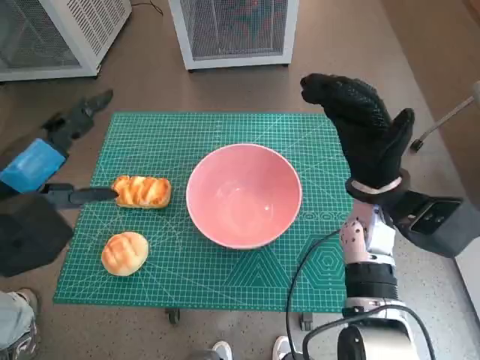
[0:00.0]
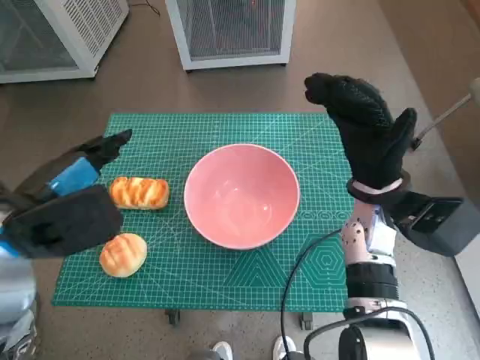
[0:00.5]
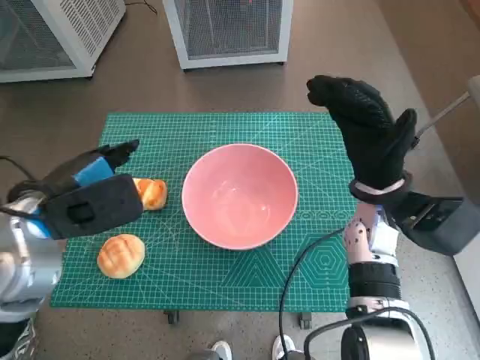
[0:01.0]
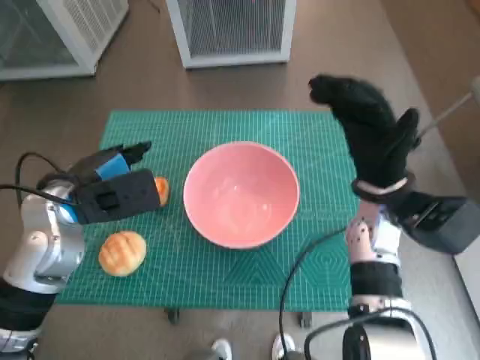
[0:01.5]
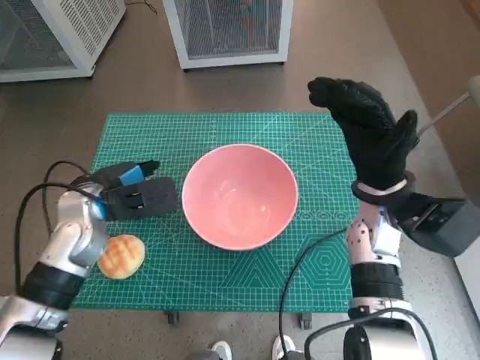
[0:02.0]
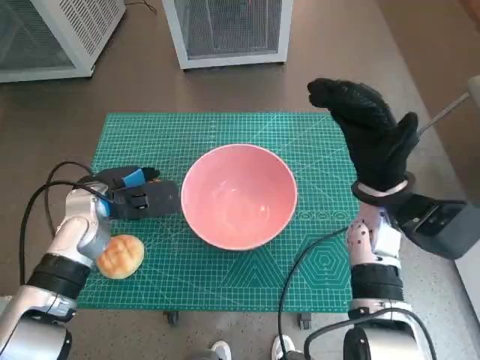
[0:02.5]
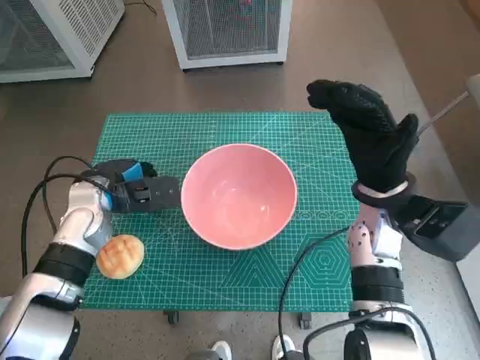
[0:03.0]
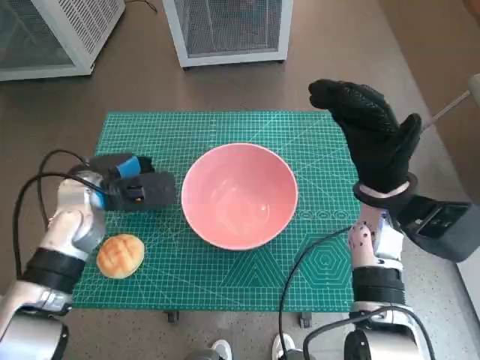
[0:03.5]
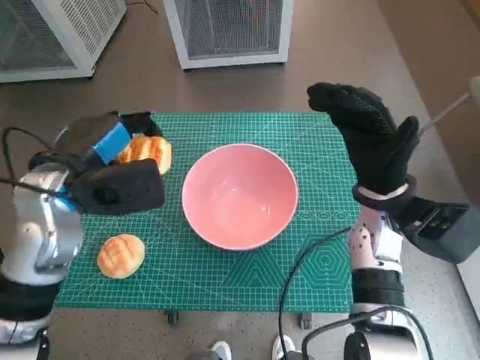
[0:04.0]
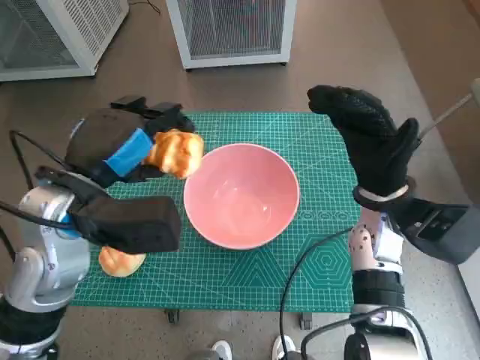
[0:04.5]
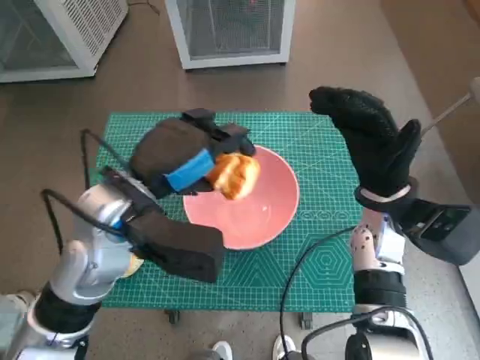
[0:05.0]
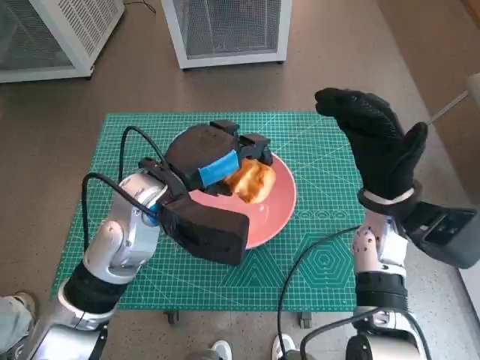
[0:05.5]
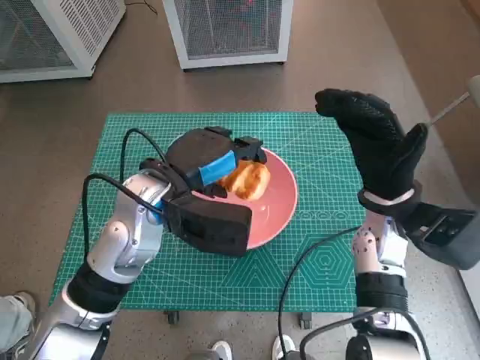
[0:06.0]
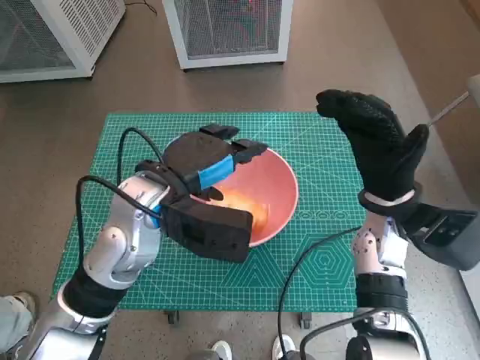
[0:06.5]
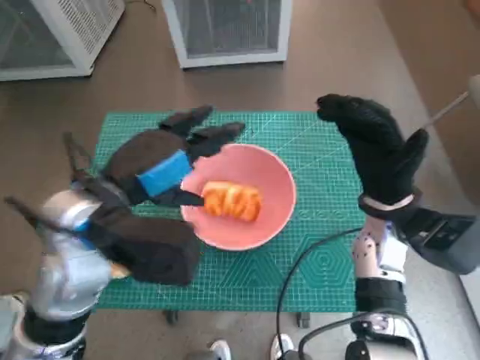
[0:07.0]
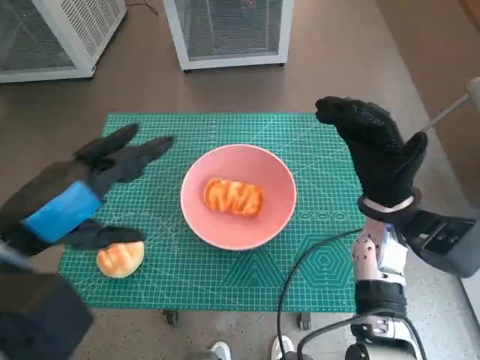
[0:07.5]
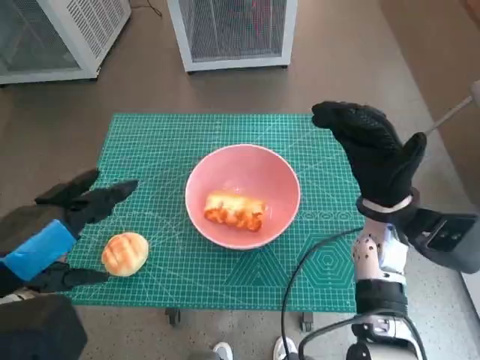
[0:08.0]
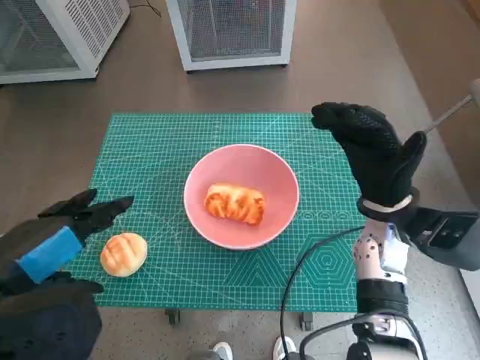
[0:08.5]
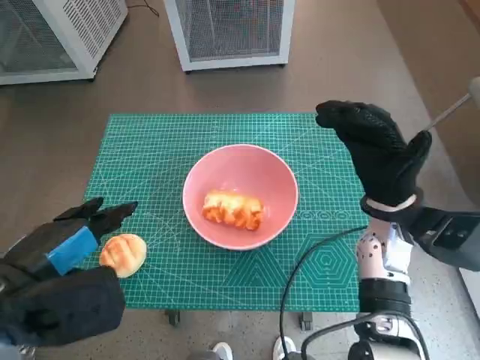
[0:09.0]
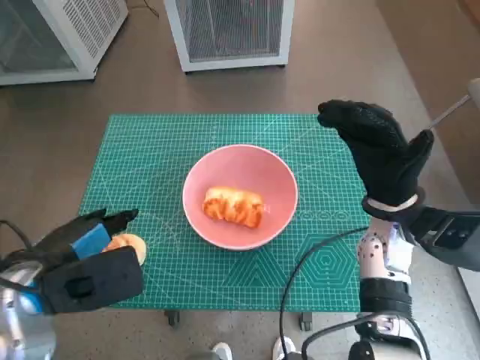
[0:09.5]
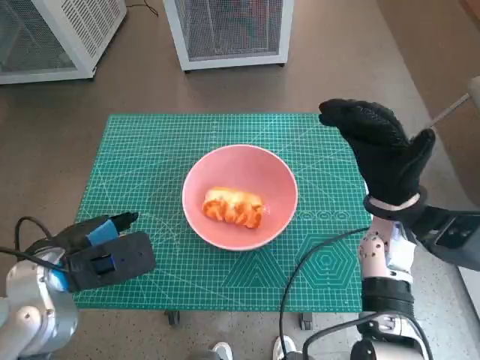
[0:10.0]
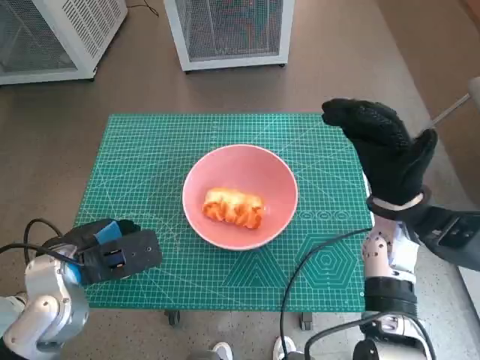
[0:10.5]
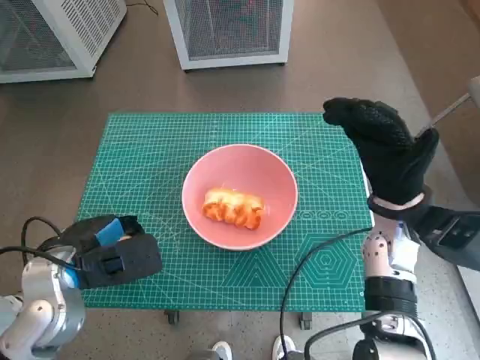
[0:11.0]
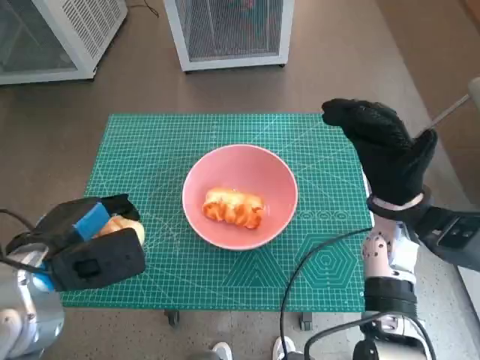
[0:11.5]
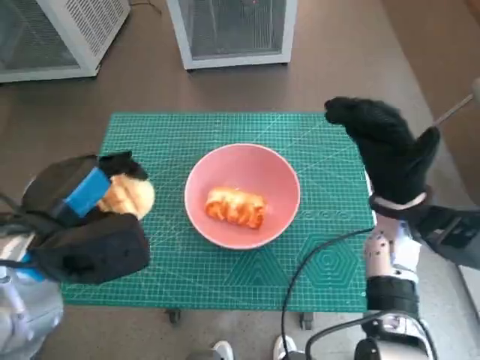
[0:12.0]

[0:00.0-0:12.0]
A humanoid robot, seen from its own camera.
Task of the whole recording: Push the bowl into the center of the table and put the bread into the bowl.
Step, 0:00.0 to 0:02.5: Grasp the long bread with left hand.
Step, 0:03.0 to 0:06.0: Place the long bread in pink bowl with left hand.
Step, 0:06.5 to 0:10.5: Grasp the round bread with left hand.
0:00.0 to 0:02.0: The left hand goes roughly 15 cm downward and forward.
0:02.0 to 0:04.0: The left hand is displaced upward by about 5 cm.
0:04.0 to 0:06.0: The left hand moves to the right, about 10 cm.
0:06.0 to 0:08.0: The left hand moves backward, to the left and upward, roughly 20 cm.
0:08.0 to 0:10.0: The left hand travels downward and forward by about 10 cm.
0:10.0 to 0:12.0: The left hand travels upward by about 5 cm.

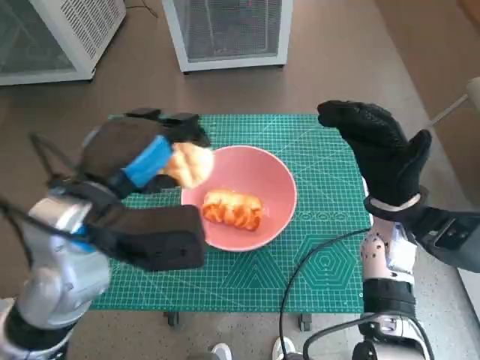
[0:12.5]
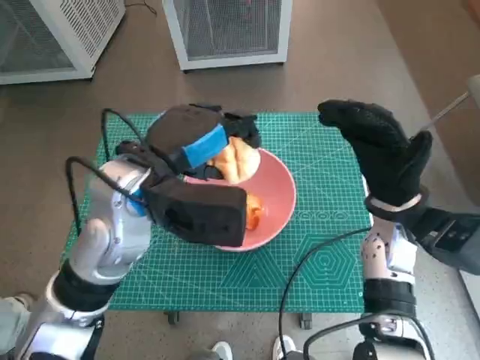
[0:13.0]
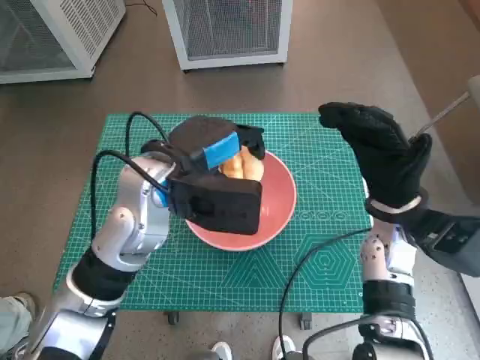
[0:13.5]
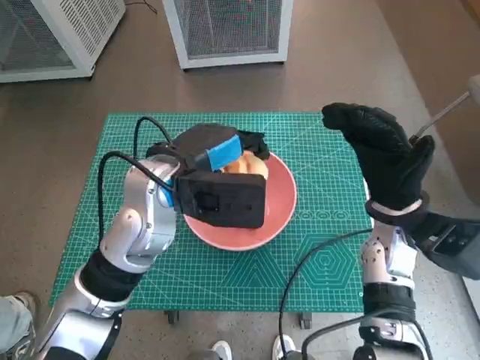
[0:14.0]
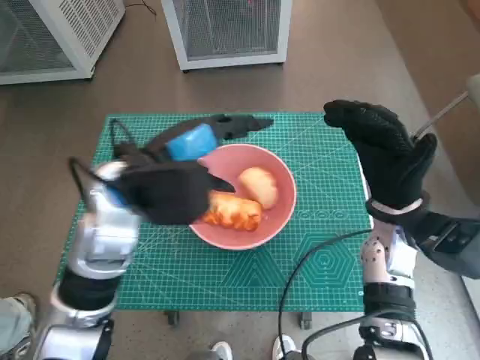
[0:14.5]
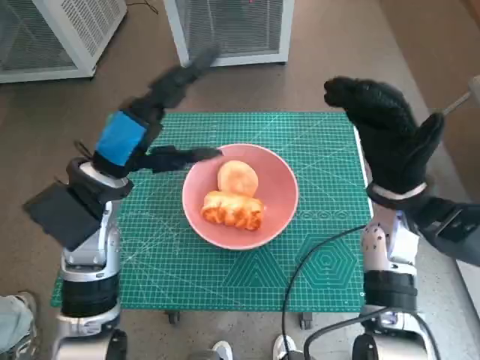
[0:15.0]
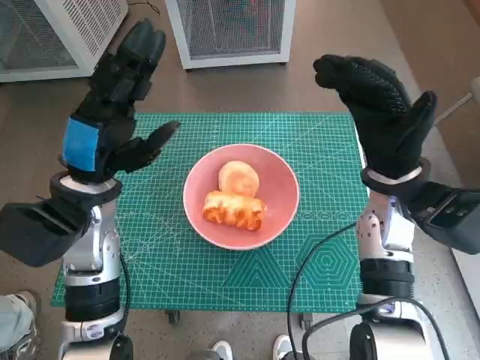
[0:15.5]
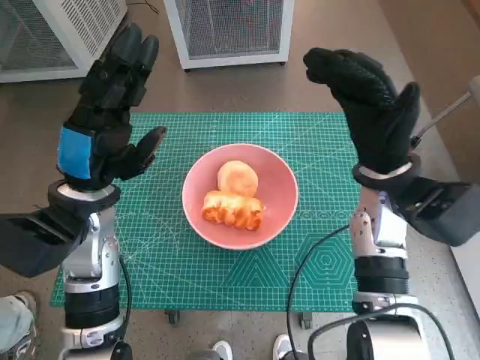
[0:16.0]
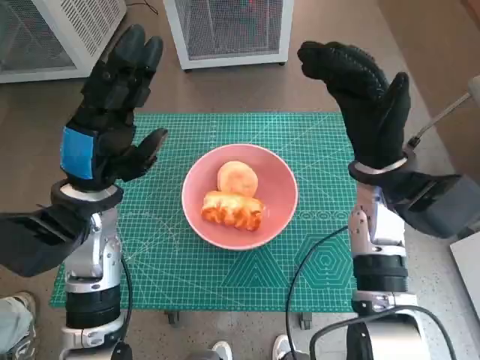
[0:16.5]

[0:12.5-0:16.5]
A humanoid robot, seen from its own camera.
Task of the whole recording: Push the bowl into the center of the table and put the bread into the bowl.
0:12.5 to 0:14.5: The left hand travels forward by about 5 cm.
0:14.5 to 0:16.5: The right hand ends up some 5 cm from where it was. Meanwhile the left hand is displaced to the left by some 5 cm.

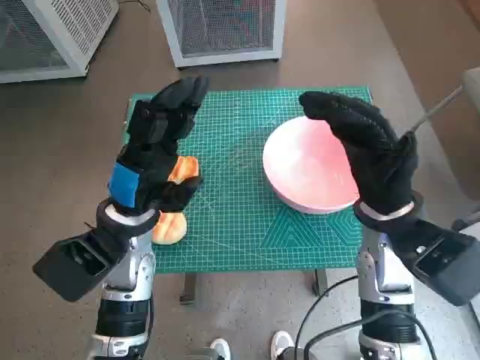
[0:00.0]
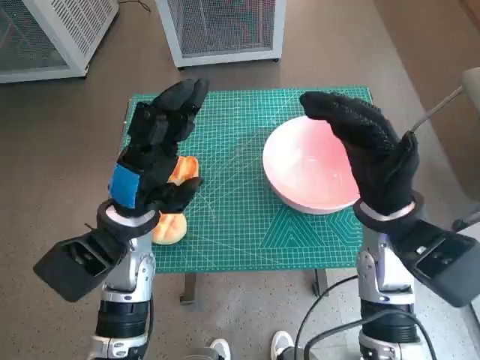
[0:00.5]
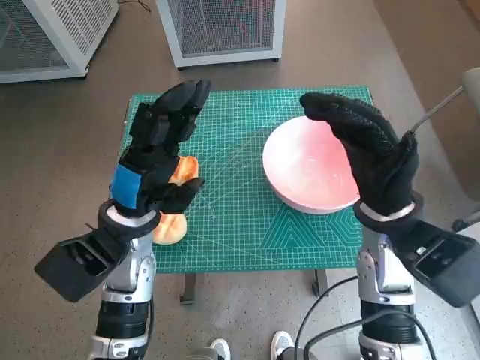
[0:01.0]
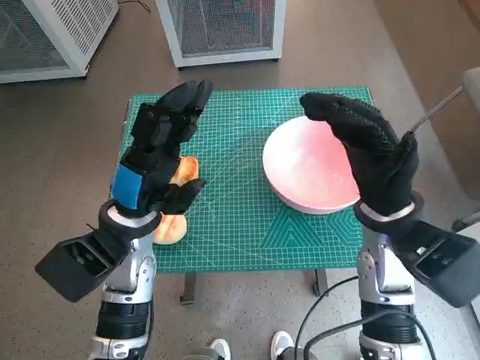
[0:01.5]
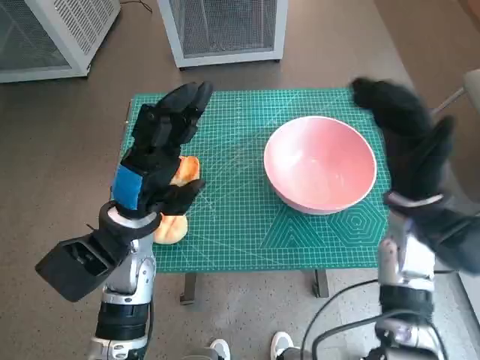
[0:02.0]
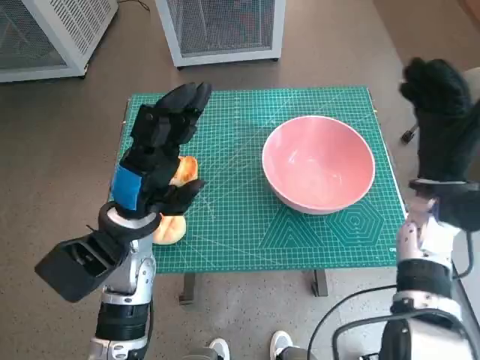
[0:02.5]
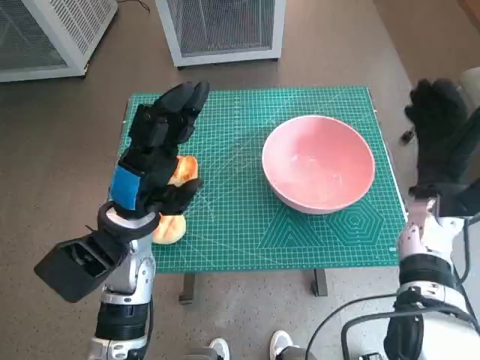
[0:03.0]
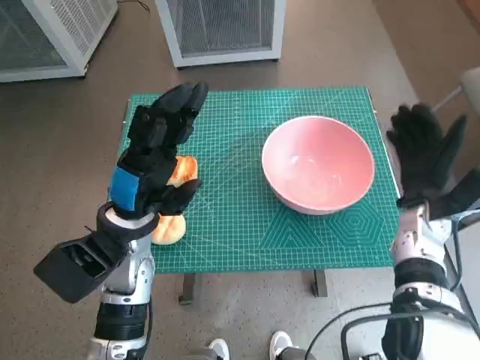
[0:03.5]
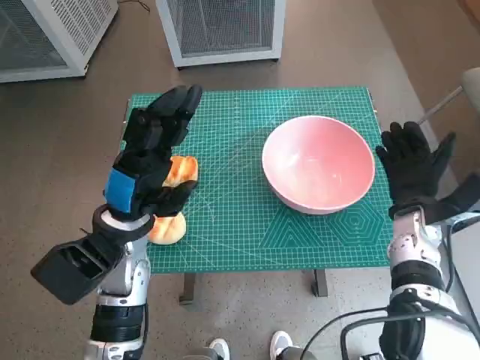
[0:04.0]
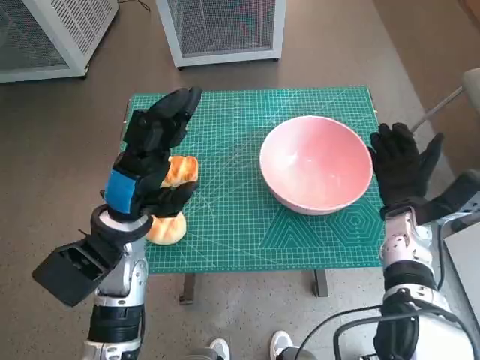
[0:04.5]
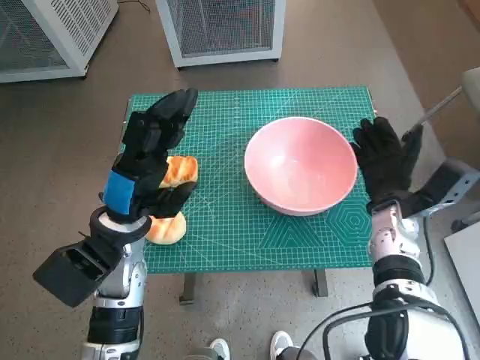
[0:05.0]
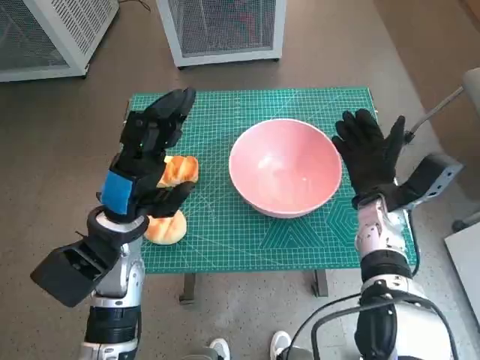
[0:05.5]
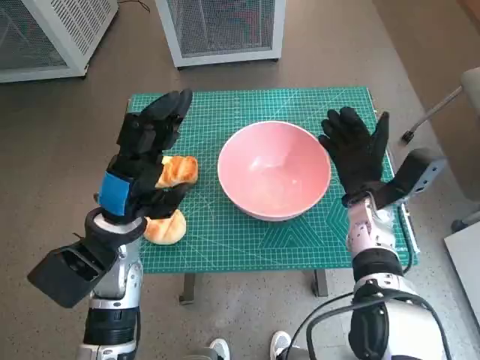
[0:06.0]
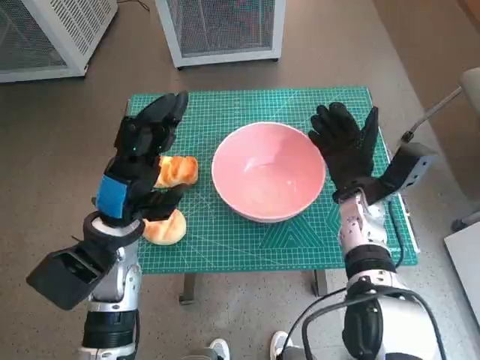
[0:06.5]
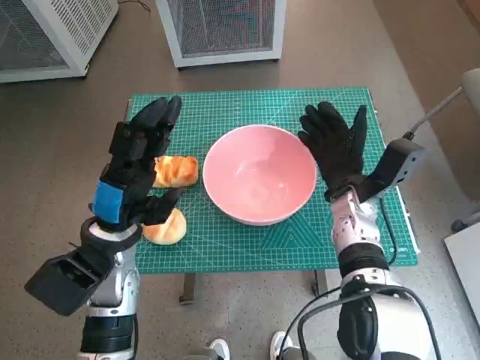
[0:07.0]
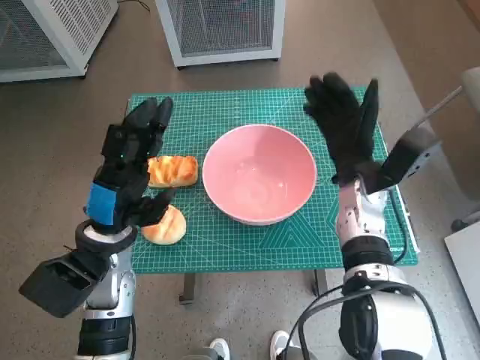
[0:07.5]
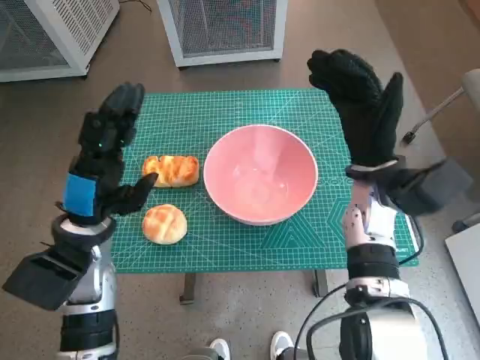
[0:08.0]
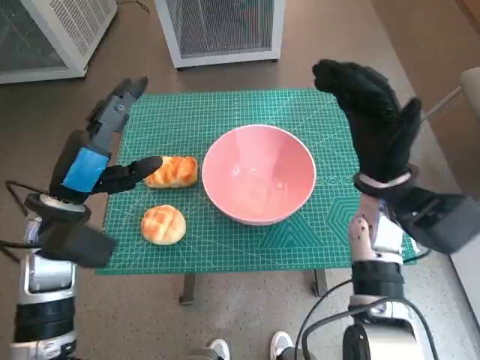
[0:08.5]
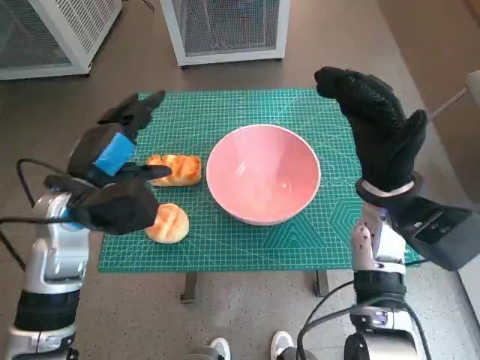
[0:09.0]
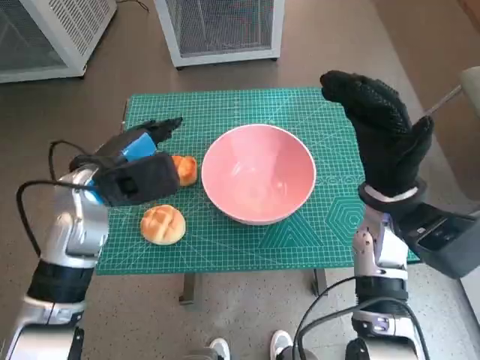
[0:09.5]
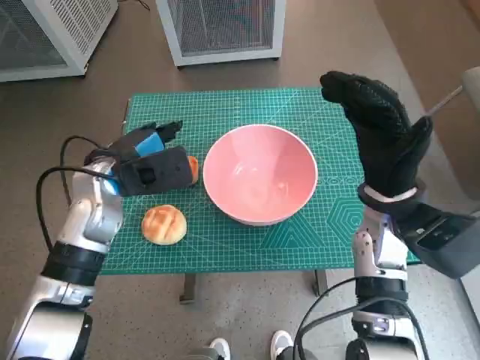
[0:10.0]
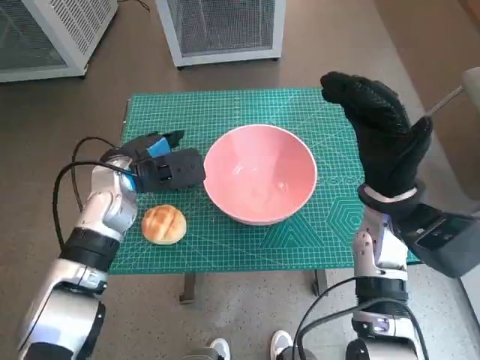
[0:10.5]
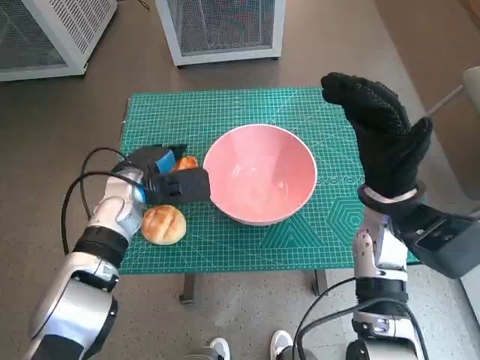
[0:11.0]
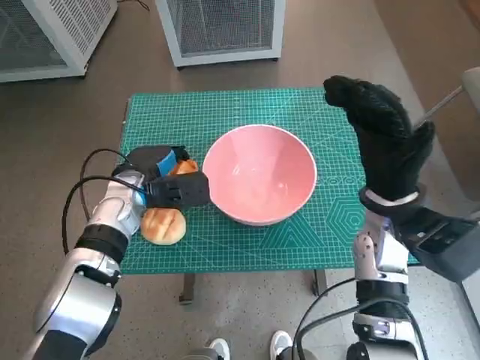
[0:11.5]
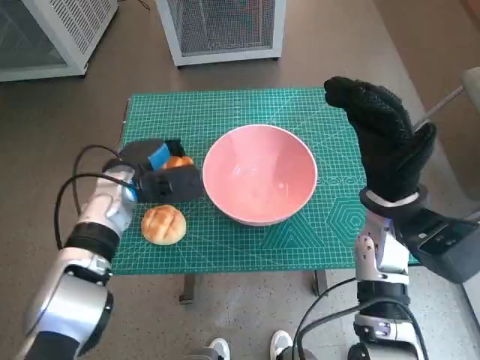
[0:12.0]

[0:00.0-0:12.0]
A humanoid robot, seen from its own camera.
Task of the whole recording: Push the bowl into the center of the table and put the bread into the bowl.
Step, 0:00.0 to 0:07.0: Move the pink bowl to the center of table with right hand.
Step, 0:07.5 to 0:11.0: Grasp the long bread with left hand.
0:02.0 to 0:04.0: The right hand shifts some 10 cm downward.
0:04.0 to 0:06.0: The right hand travels to the left by roughly 5 cm.
0:06.0 to 0:08.0: The right hand is displaced upward by about 5 cm.
0:08.0 to 0:10.0: The left hand moves forward, some 10 cm.
0:10.0 to 0:12.0: The left hand heads downward, covering about 5 cm.
